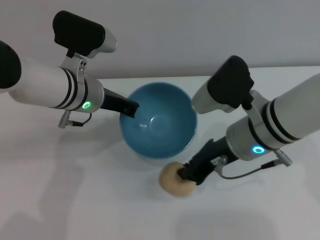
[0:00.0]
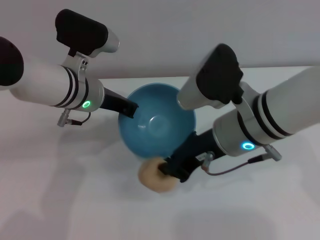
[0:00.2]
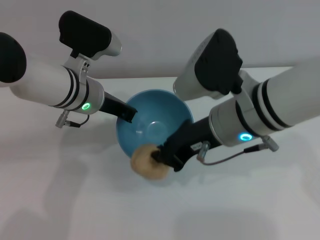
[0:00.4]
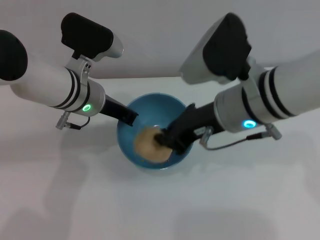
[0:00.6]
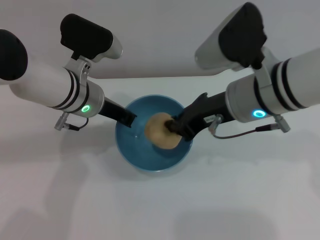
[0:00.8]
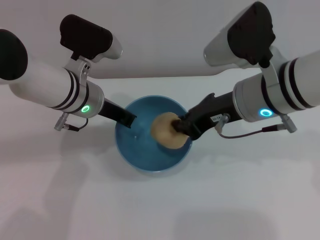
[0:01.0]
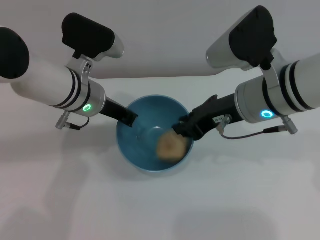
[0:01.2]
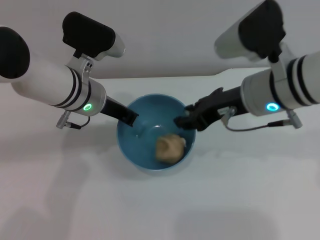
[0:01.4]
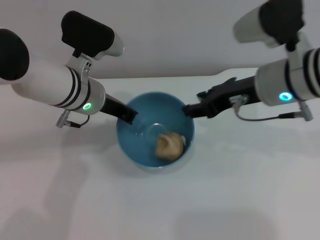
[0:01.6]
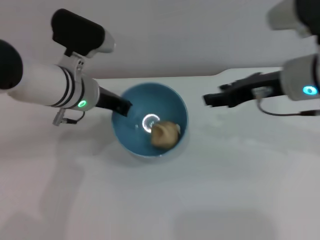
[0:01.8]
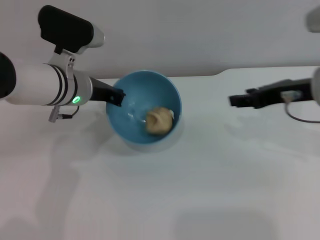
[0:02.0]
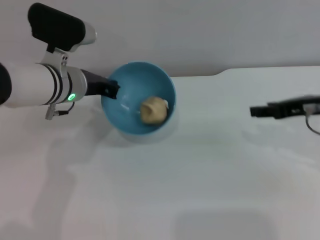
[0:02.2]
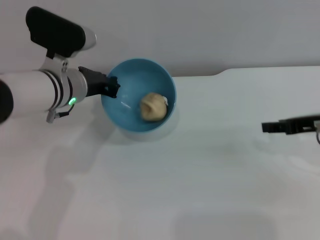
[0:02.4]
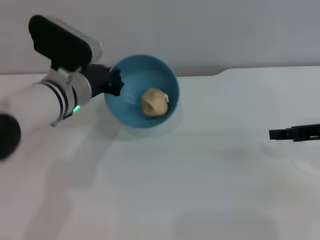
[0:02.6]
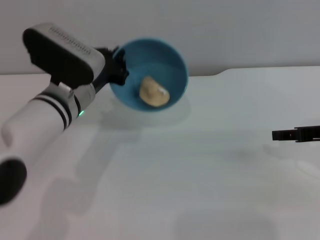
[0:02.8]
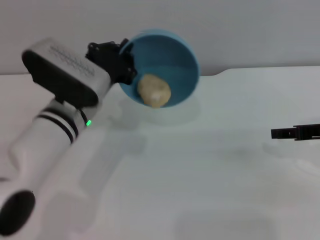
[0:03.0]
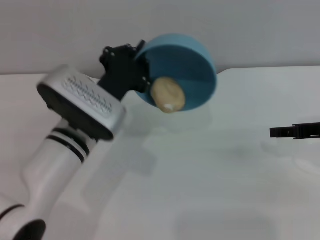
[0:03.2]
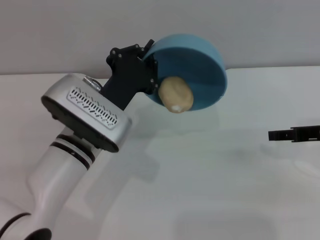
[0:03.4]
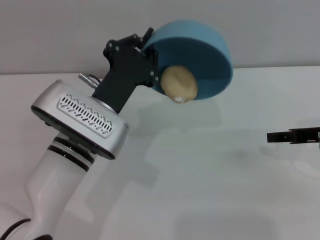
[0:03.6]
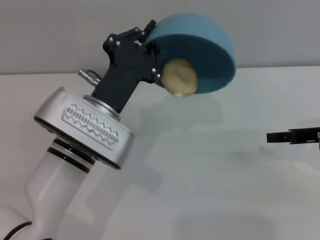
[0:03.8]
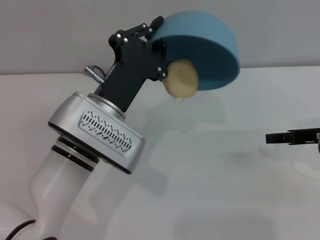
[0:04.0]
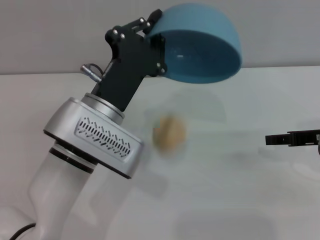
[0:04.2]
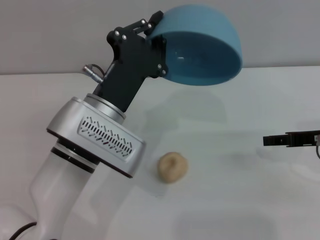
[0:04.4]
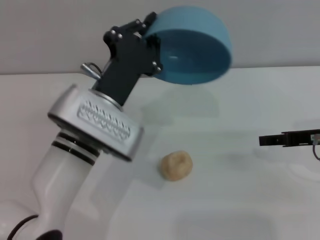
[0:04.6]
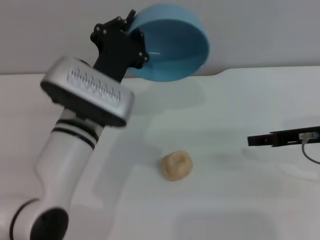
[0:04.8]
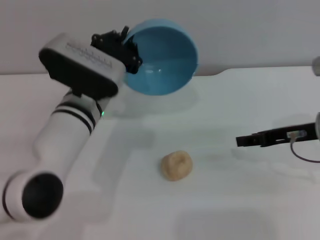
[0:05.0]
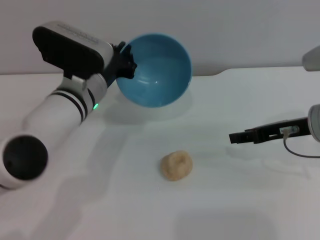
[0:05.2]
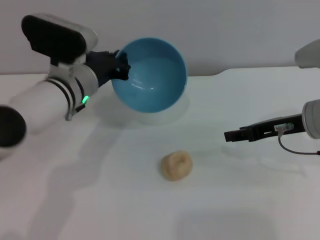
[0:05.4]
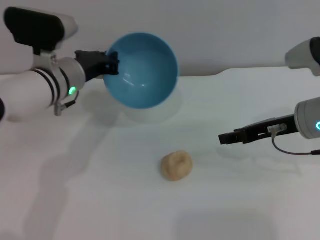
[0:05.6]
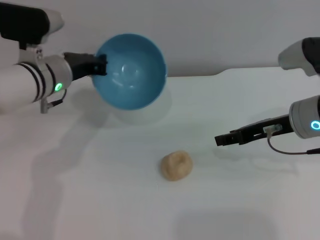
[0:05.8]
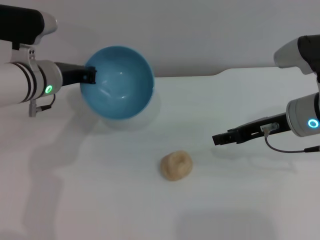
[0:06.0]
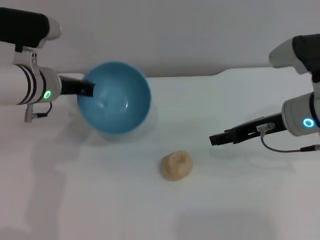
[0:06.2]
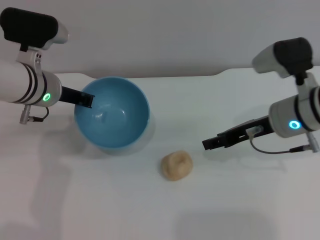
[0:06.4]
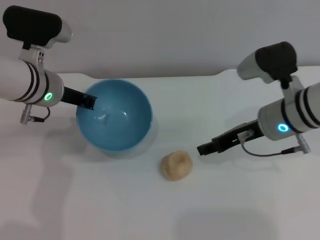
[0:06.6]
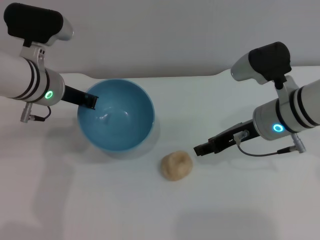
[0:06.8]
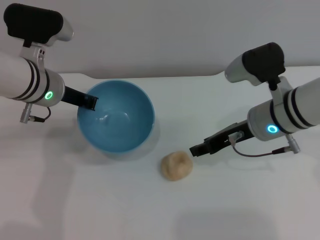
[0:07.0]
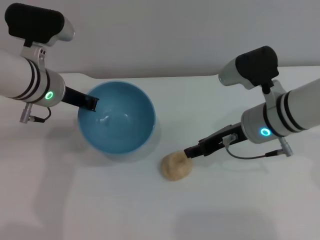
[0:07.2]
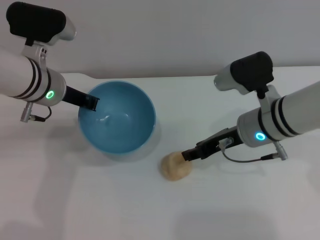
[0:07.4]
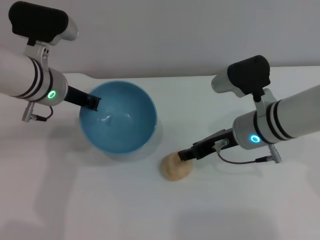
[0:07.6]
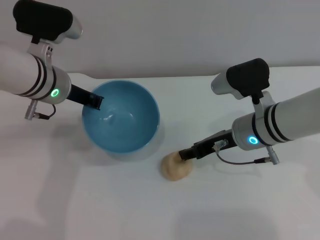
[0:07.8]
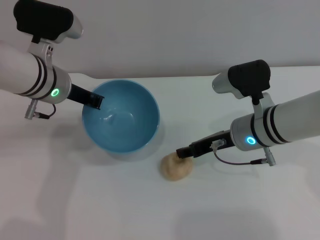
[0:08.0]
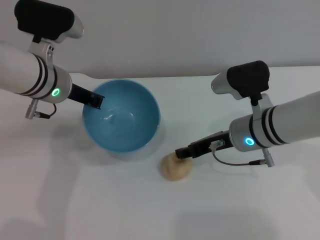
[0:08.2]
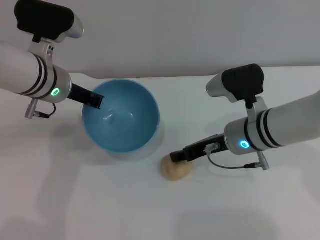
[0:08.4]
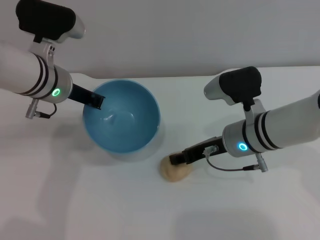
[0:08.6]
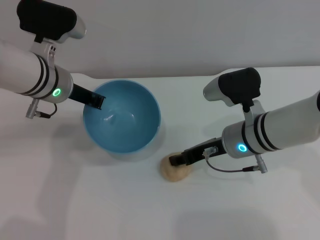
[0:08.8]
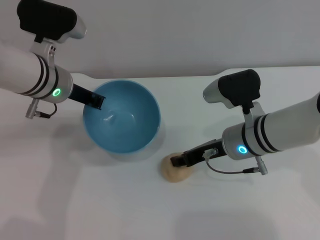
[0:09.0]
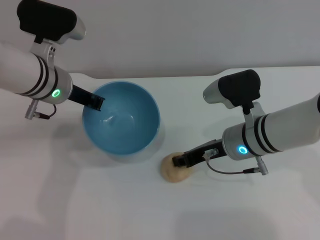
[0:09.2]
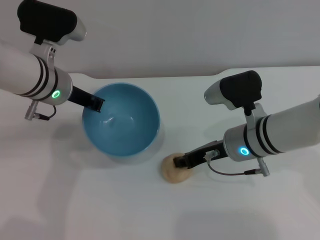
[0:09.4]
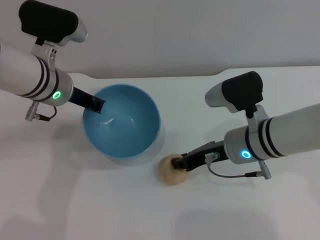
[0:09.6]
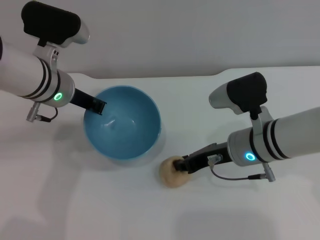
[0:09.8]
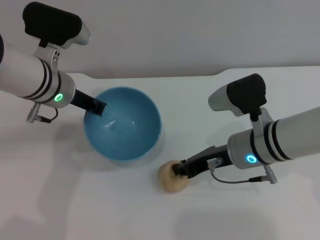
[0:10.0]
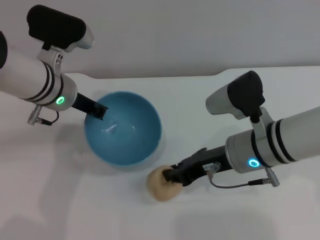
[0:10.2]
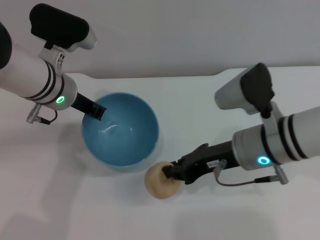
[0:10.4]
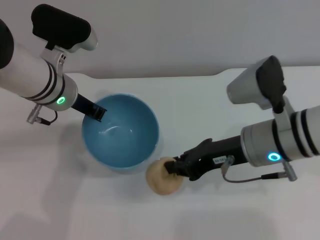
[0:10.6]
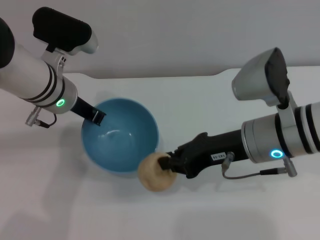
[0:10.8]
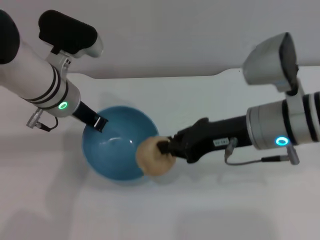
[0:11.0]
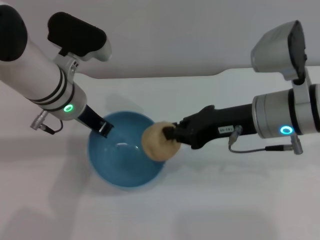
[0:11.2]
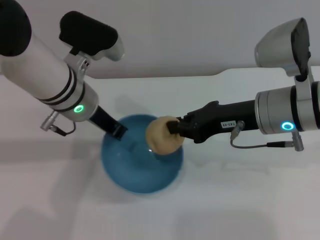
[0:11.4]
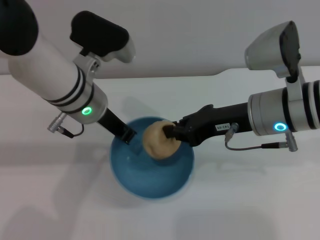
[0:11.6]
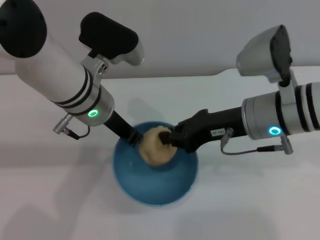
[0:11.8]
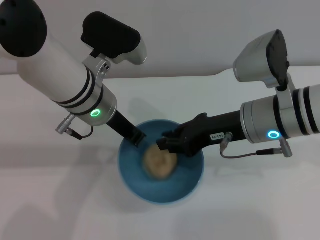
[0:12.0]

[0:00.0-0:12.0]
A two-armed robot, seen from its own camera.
Task of the whole recording: put the egg yolk pastry into the blue bowl and pour it out repeatedly.
Step, 0:00.0 to 0:01.4: Place the egg yolk pastry into the bowl.
Step, 0:01.6 to 0:04.4: Pour the egg yolk pastry out of bowl.
Step, 0:04.8 to 0:09.8: Pick up the egg yolk pastry with the right gripper.
0:00.0 to 0:01.6: The right gripper travels upward by about 5 cm, and opens.
0:01.6 to 0:03.0: The right gripper goes approximately 15 cm to the right and downward; the left gripper is displaced backward by approximately 5 cm.
0:03.0 to 0:04.4: The left gripper changes place by approximately 5 cm.
0:04.4 to 0:06.0: The right gripper shifts about 10 cm to the left, while the left gripper goes about 15 cm forward and to the left.
0:06.0 to 0:07.6: The right gripper moves to the left, some 5 cm.
0:07.6 to 0:09.0: There are only small adjustments of the grippers.
0:09.0 to 0:10.4: The right gripper is displaced upward by roughly 5 cm, and closes its fingers.
0:10.4 to 0:12.0: The left gripper goes some 5 cm to the right.

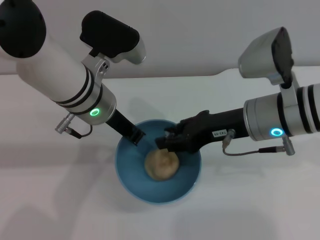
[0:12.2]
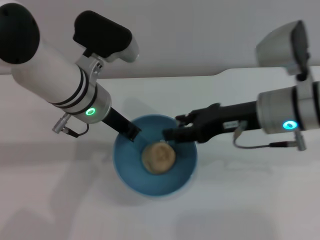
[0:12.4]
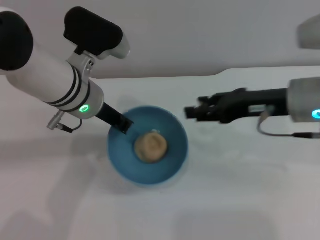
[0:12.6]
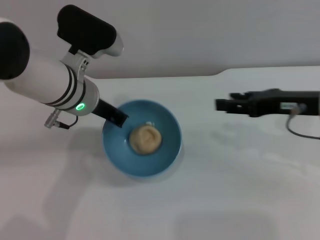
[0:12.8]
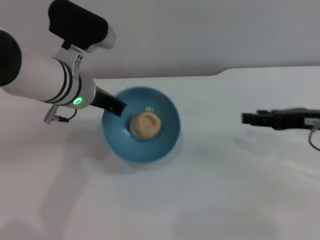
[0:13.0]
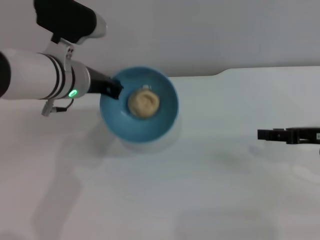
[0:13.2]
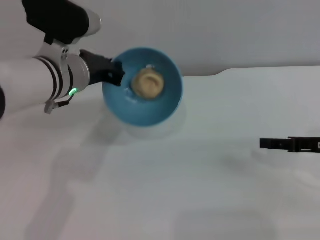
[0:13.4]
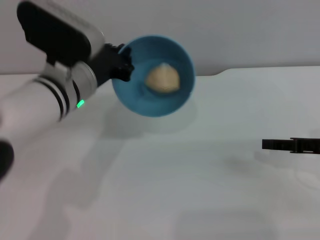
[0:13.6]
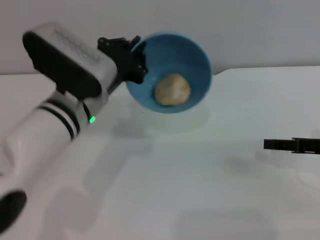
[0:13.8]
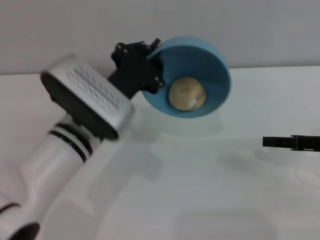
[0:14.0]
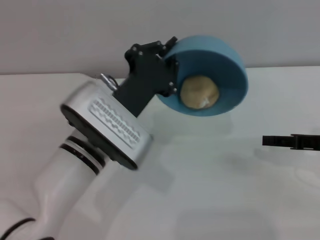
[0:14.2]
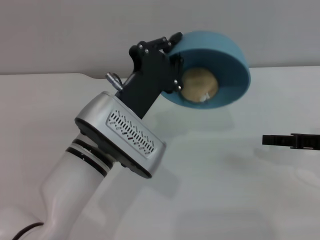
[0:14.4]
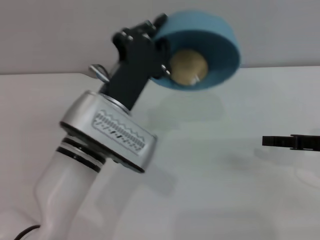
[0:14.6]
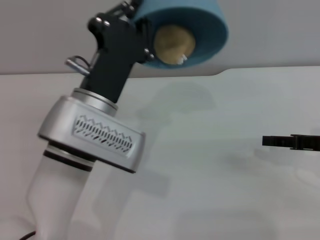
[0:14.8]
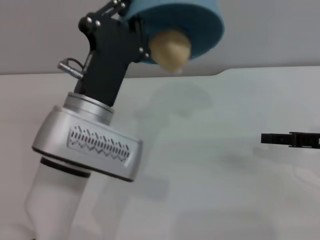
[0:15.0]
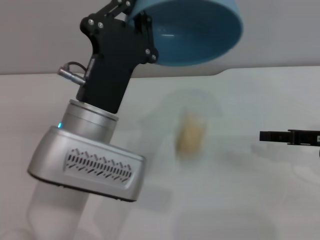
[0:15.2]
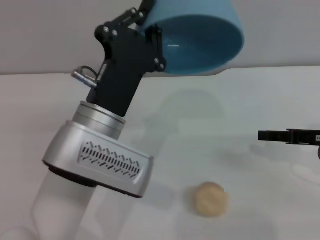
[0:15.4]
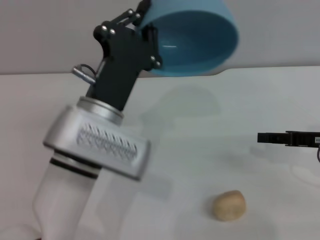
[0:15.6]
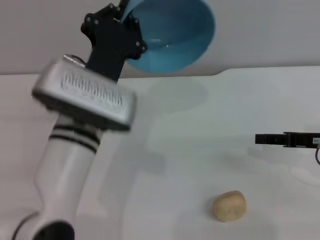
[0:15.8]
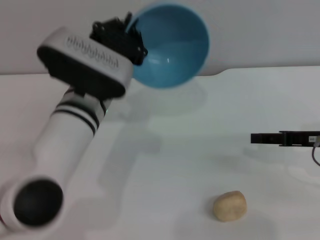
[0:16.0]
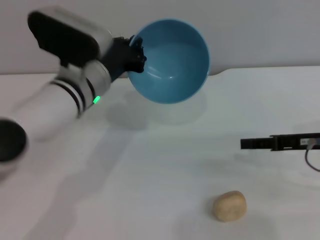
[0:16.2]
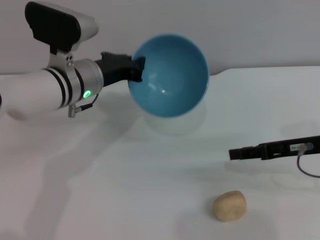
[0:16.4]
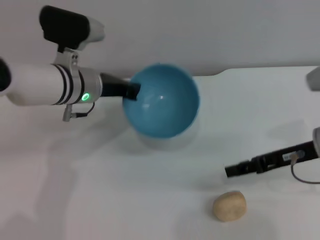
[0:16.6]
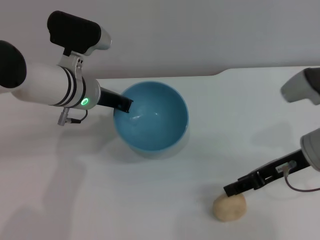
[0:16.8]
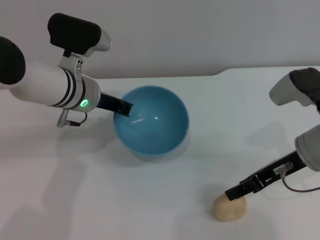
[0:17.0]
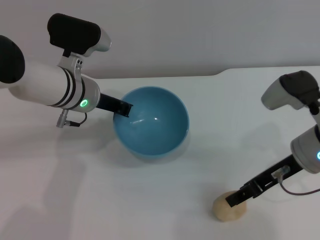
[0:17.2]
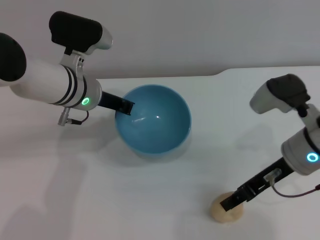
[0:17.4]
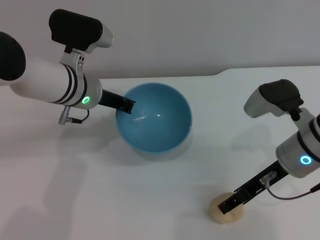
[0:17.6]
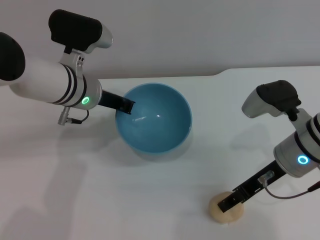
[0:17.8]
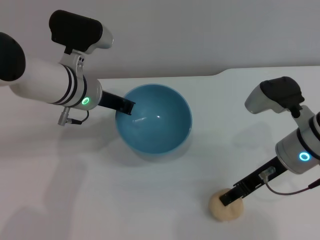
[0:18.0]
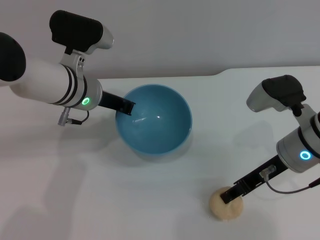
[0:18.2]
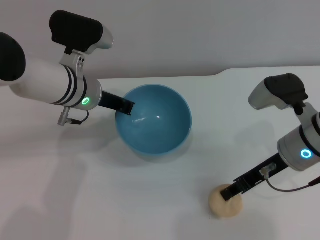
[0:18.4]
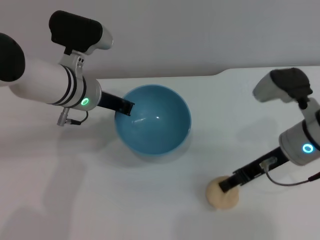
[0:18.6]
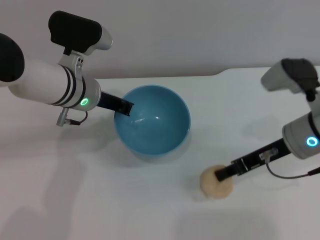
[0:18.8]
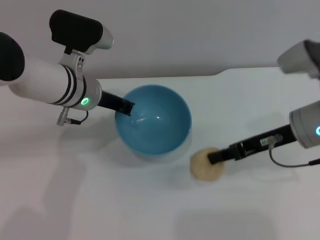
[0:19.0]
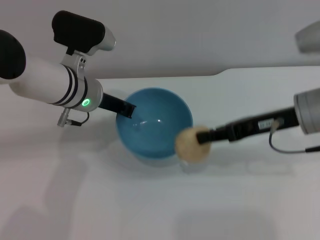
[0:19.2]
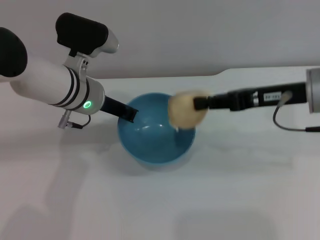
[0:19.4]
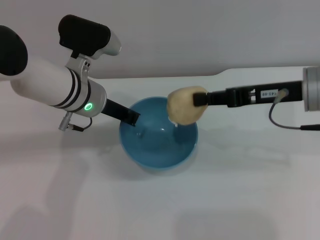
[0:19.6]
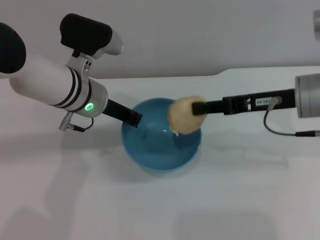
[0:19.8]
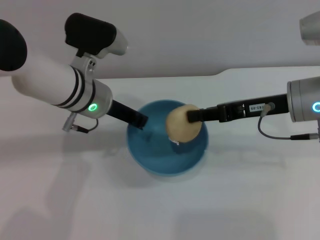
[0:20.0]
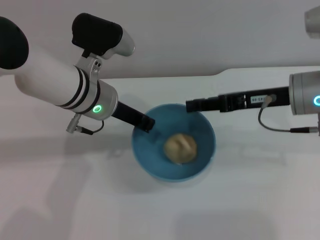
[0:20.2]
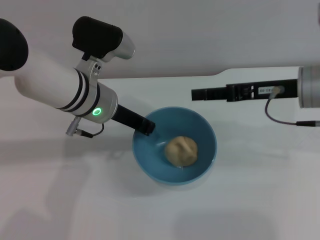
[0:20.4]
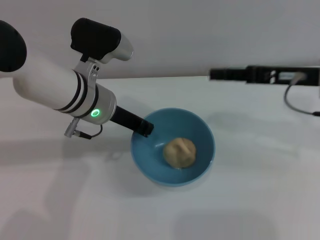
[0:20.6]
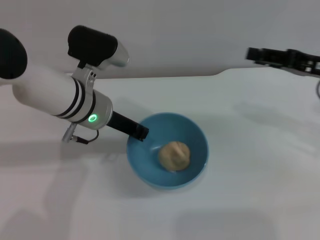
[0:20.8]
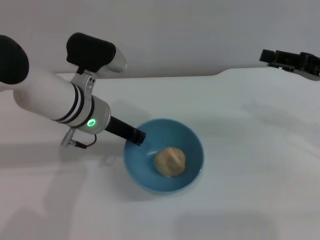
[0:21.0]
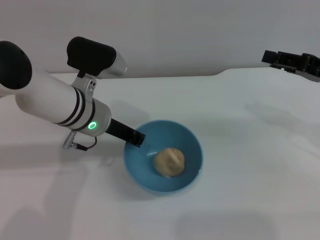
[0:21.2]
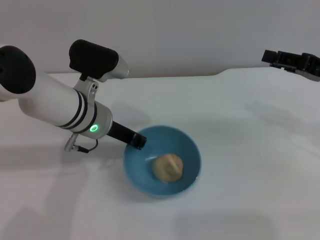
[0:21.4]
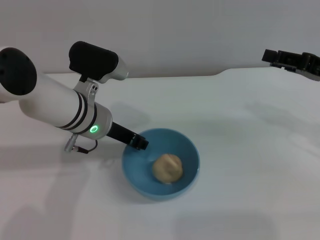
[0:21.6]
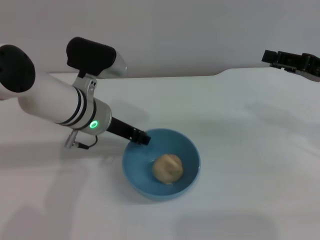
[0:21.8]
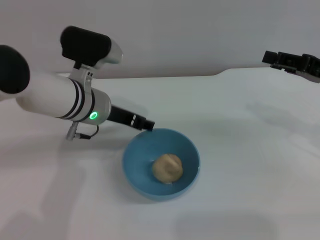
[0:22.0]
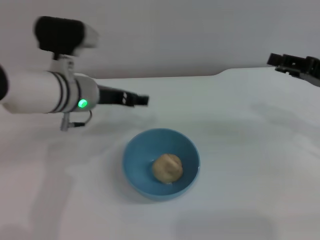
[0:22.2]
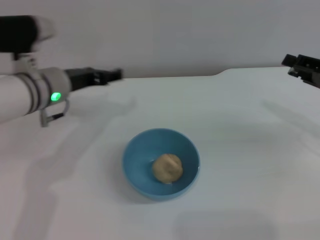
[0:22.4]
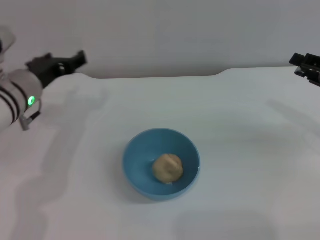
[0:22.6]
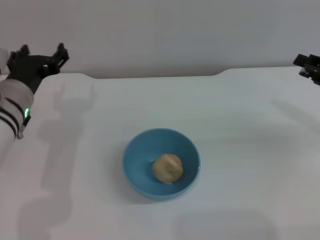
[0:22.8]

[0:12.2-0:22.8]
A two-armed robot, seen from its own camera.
Task of the whole recording: put the egg yolk pastry into the blue bowl and pour it out repeatedly.
Step, 0:12.4 to 0:15.4: Pour the egg yolk pastry out of bowl.
Step, 0:15.6 to 0:18.8: Pick up the egg yolk pastry with the right gripper.
Step, 0:19.2 to 0:20.4: Place the egg yolk pastry into the bowl.
Step, 0:20.6 to 0:22.0: Place the bowl on the table.
0:12.2 to 0:13.8: The left gripper ends up roughly 5 cm from where it was. Meanwhile the right gripper goes approximately 15 cm to the right, and opens its fingers.
0:13.8 to 0:15.2: The left gripper travels backward by about 5 cm.
0:15.2 to 0:16.8: The left gripper shifts roughly 15 cm forward. The right gripper goes approximately 10 cm to the left.
0:16.8 to 0:18.2: The grippers stay close to where they were, moving slightly.
0:18.2 to 0:19.8: The right gripper heads upward, covering roughly 5 cm, and closes its fingers.
0:19.8 to 0:21.2: The right gripper moves to the right, about 10 cm, and opens up.
0:21.2 to 0:22.8: The left gripper goes roughly 10 cm to the left, and opens, while the right gripper moves some 5 cm.
